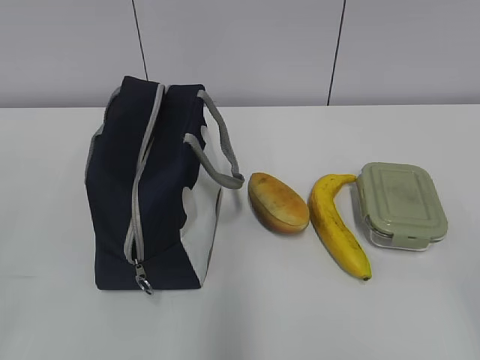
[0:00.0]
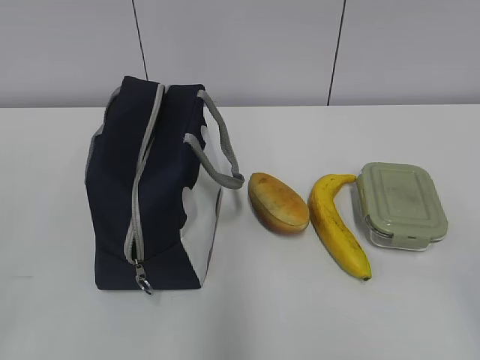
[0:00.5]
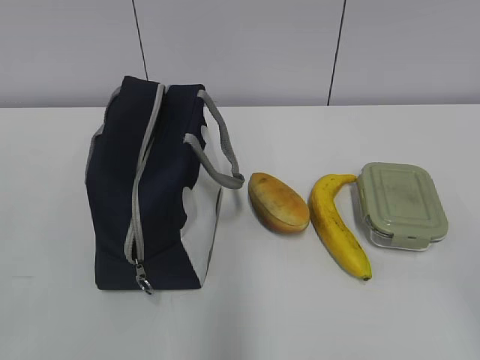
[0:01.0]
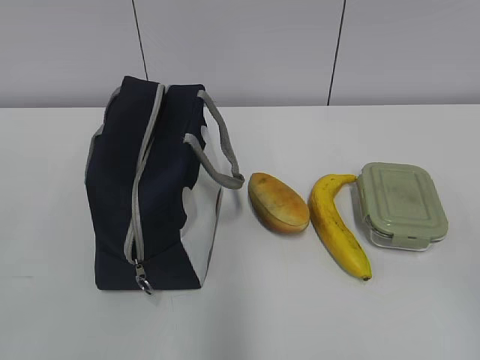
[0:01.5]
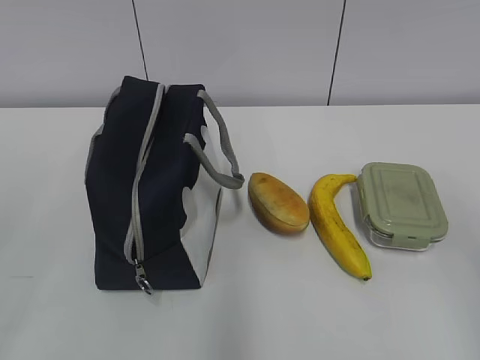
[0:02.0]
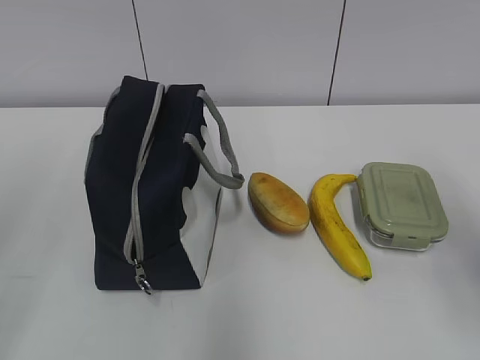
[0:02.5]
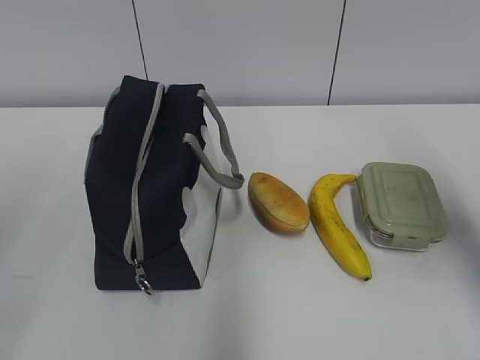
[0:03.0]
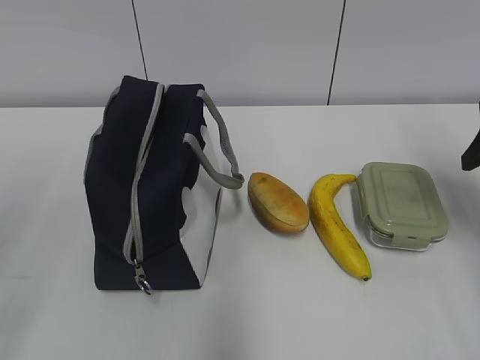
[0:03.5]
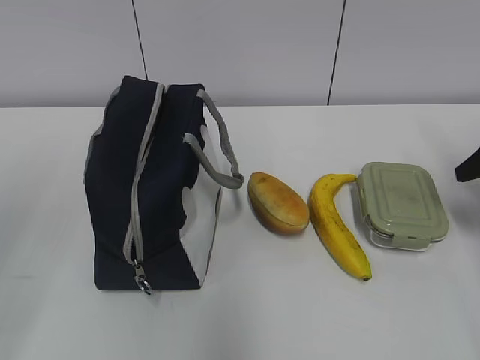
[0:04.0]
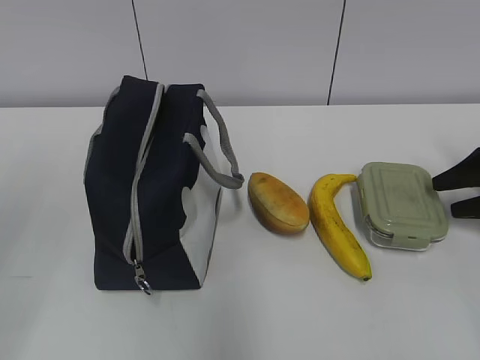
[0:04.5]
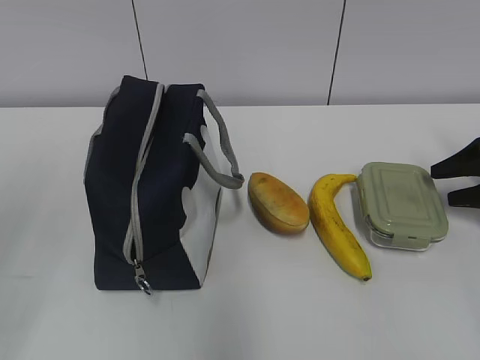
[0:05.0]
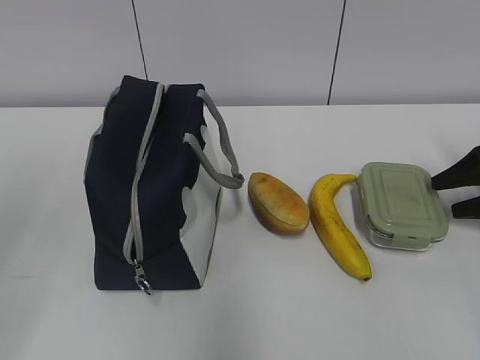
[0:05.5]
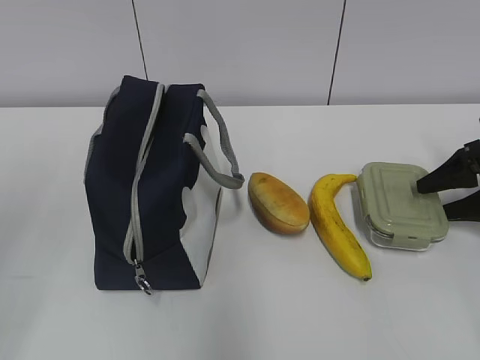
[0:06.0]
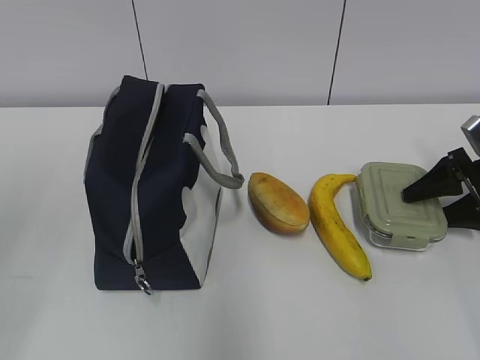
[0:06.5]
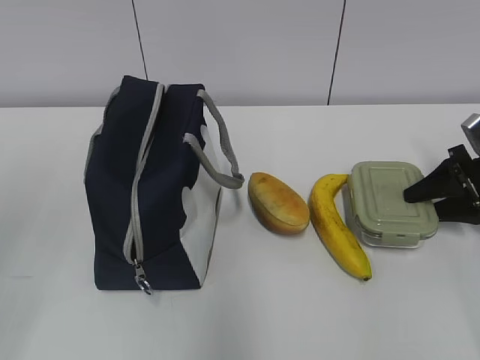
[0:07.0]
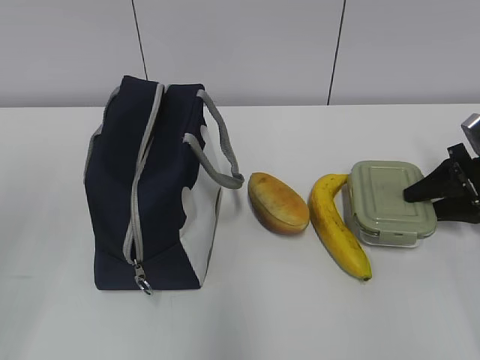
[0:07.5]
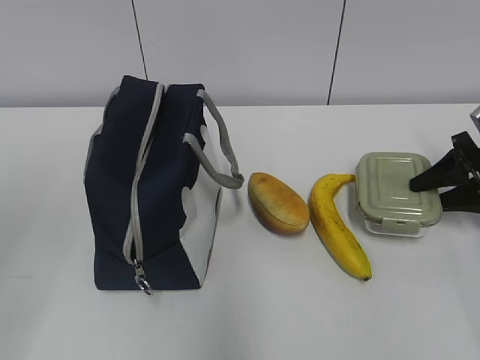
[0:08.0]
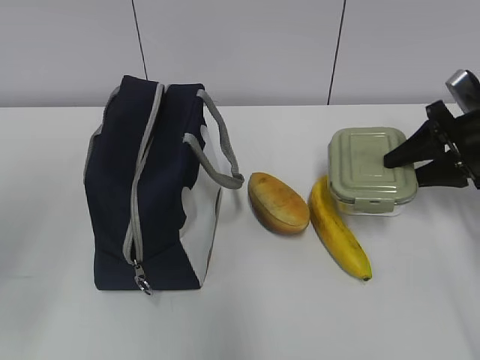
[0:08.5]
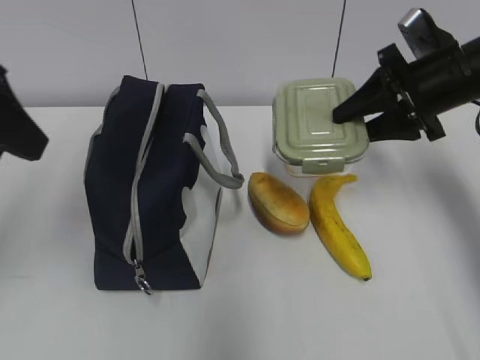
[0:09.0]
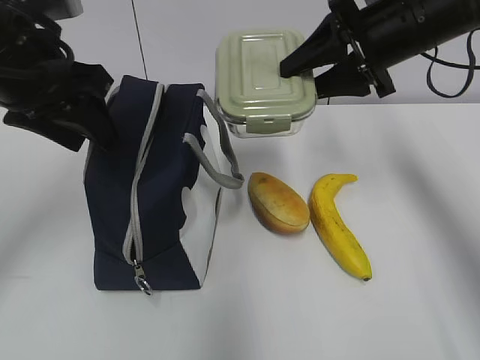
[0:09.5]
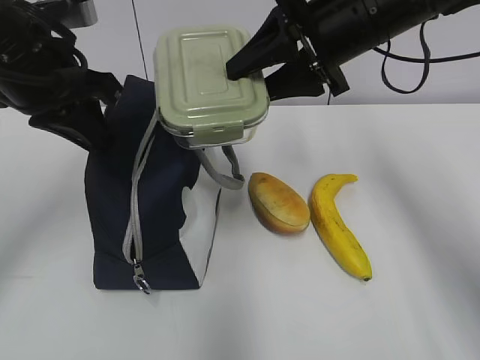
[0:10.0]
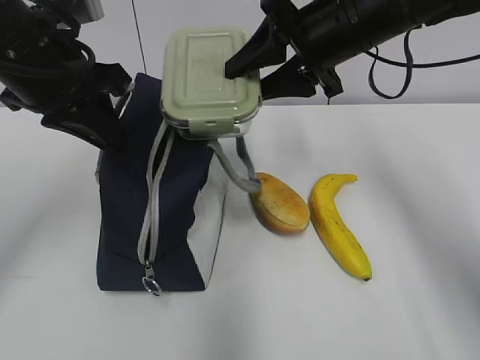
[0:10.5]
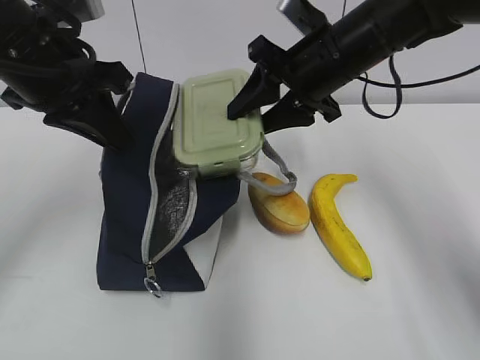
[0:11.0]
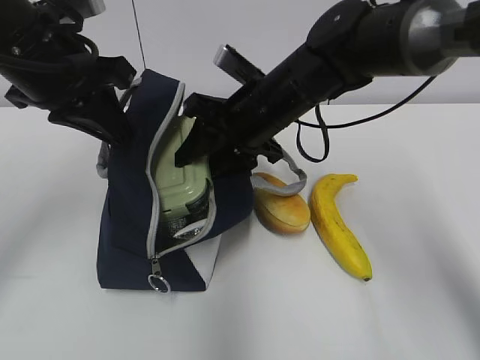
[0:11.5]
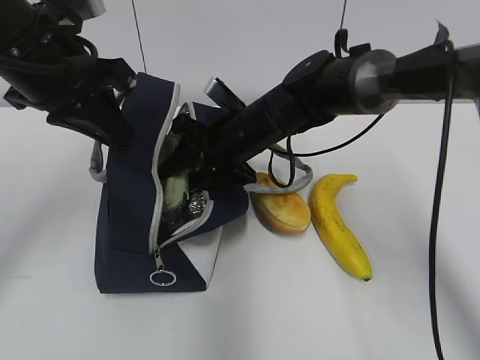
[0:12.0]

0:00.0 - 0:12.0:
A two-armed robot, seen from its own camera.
0:02.0 - 0:04.0: The right gripper is displaced forward by approximately 25 cm.
0:04.0 - 0:06.0: The right gripper heads downward, covering some 10 cm.
0:06.0 - 0:08.0: The right gripper closes up.
0:08.0 - 0:10.0: The left gripper travels forward and to the right by about 25 cm, and closes its fingers; the right gripper moves to the left and upward, some 30 cm.
0:10.0 - 0:12.0: The right gripper heads downward and to the left, covering some 20 cm.

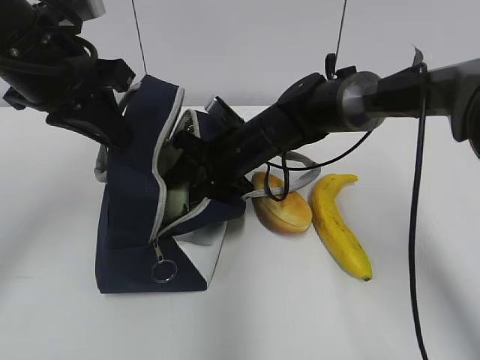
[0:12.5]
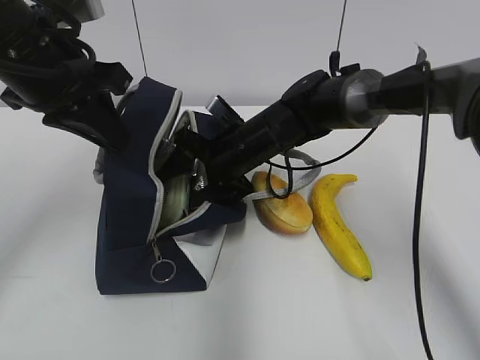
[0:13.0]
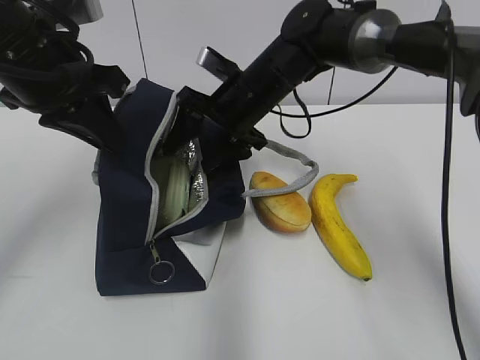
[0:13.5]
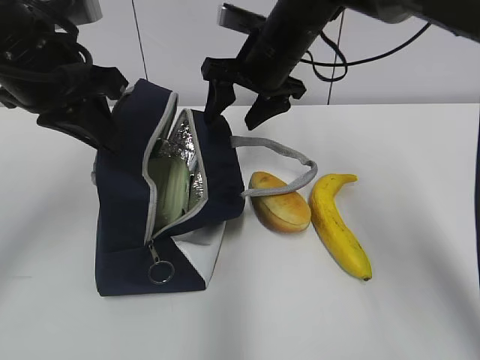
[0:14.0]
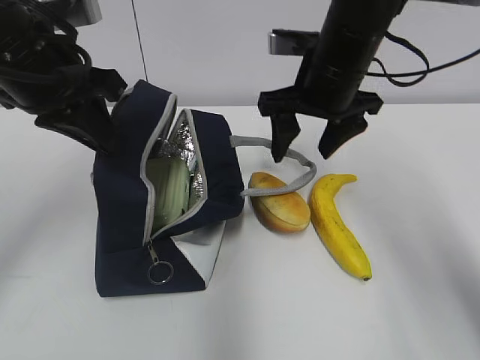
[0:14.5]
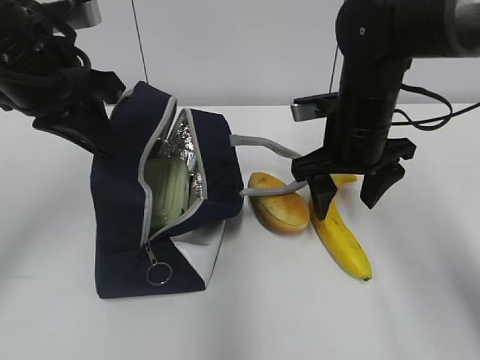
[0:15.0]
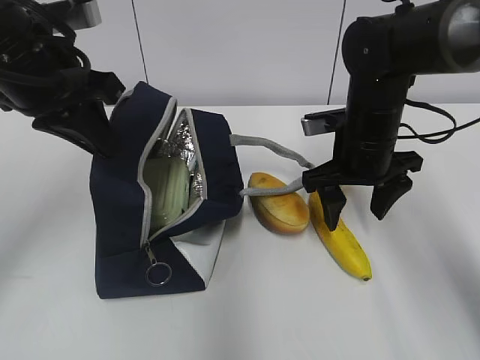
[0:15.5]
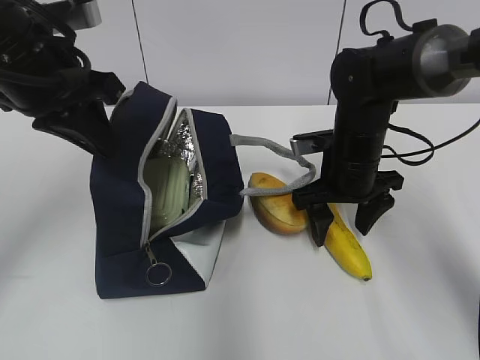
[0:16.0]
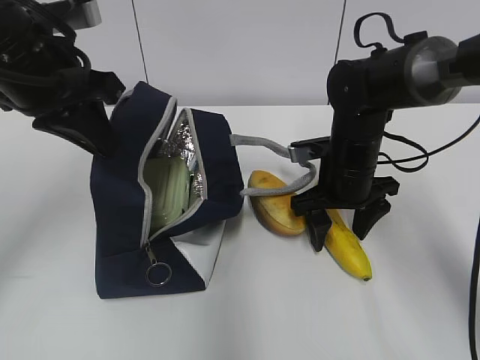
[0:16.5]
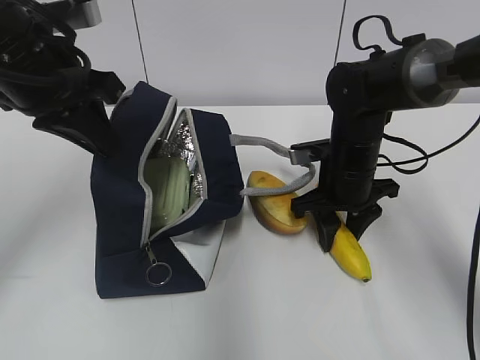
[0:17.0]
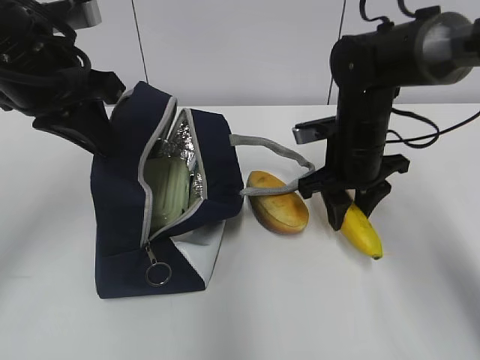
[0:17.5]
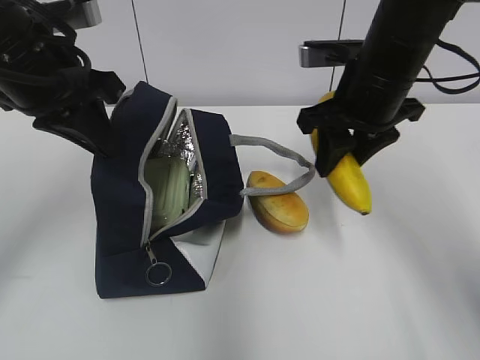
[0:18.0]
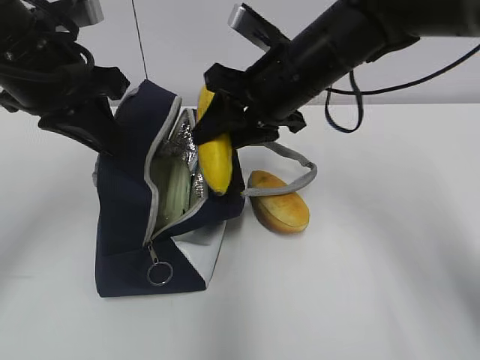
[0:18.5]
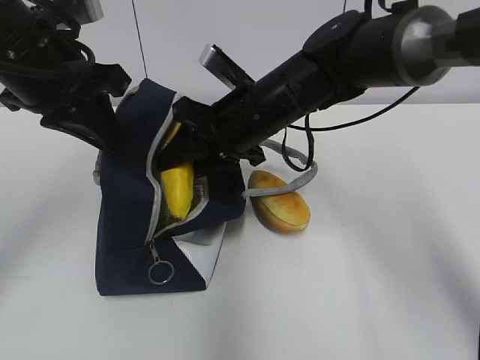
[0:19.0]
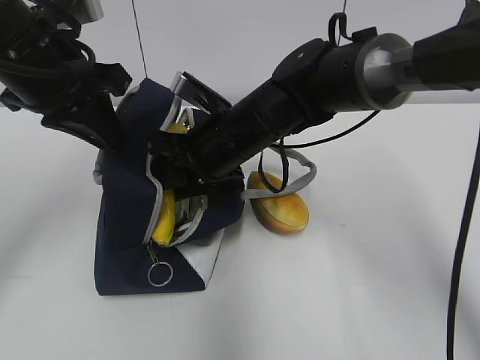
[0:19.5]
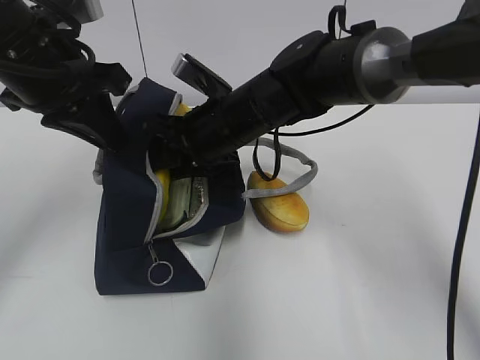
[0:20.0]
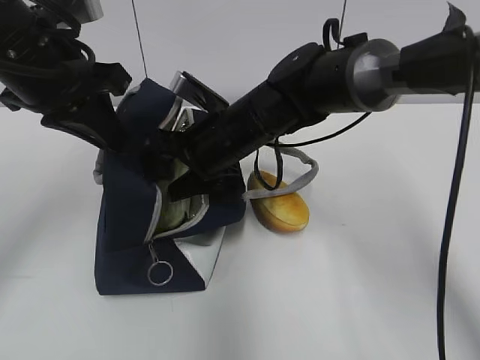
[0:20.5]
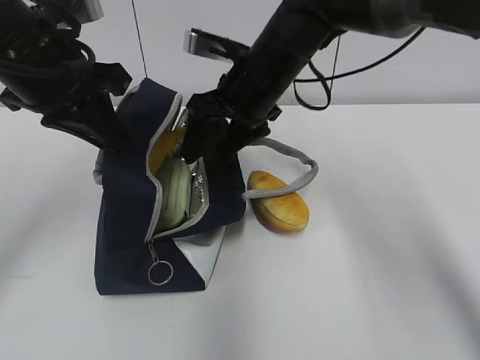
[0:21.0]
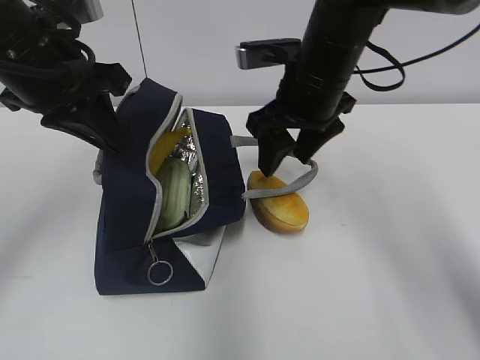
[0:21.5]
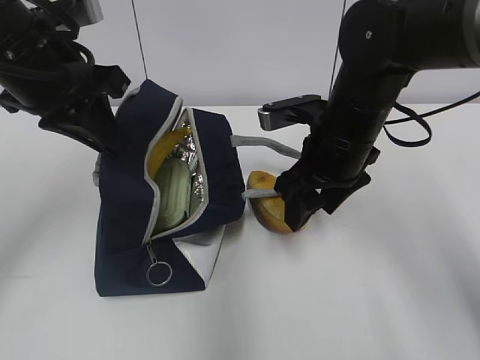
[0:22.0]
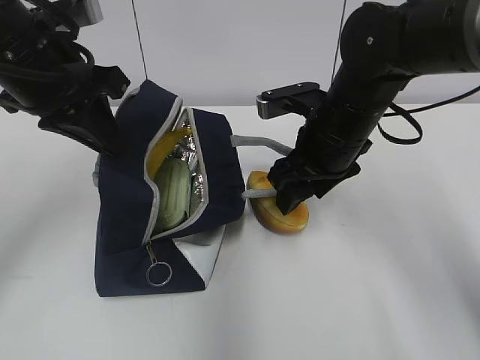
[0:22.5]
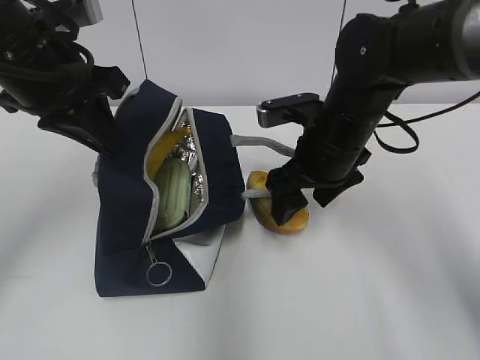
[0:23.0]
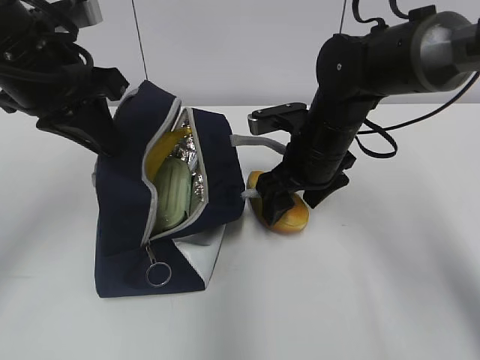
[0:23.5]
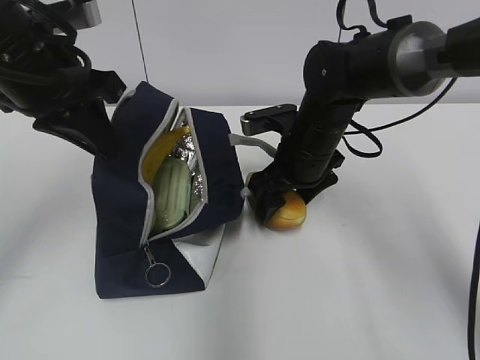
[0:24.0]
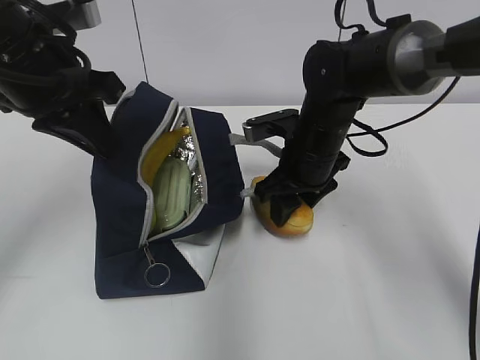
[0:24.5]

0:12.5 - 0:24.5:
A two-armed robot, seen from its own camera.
0:12.5 - 0:14.5: The right gripper heads upward and to the right, covering approximately 15 cm.
0:14.5 - 0:16.5: The right gripper moves downward, about 15 cm.
0:16.5 - 0:18.5: The right gripper moves upward and to the left, about 15 cm, and closes its fingers.
0:18.5 - 0:20.5: The right gripper travels downward and to the left by approximately 10 cm, and opens up.
0:20.5 - 0:22.5: The right gripper is displaced to the right by some 10 cm.
0:22.5 - 0:24.5: The right gripper moves about 5 cm.

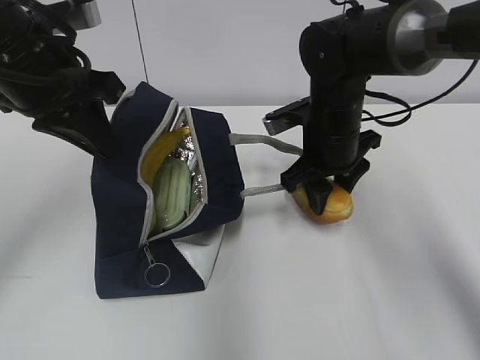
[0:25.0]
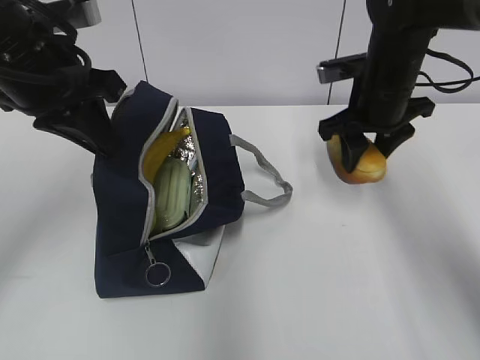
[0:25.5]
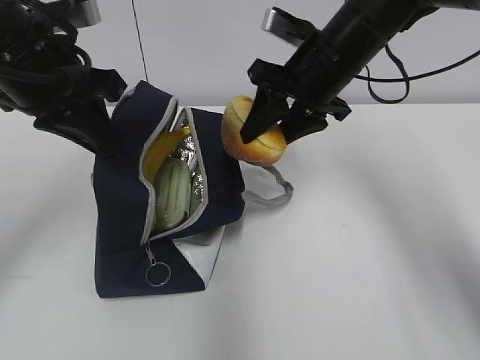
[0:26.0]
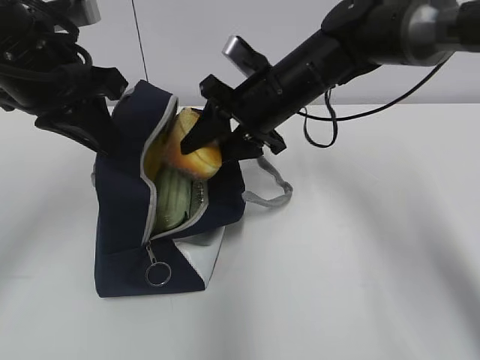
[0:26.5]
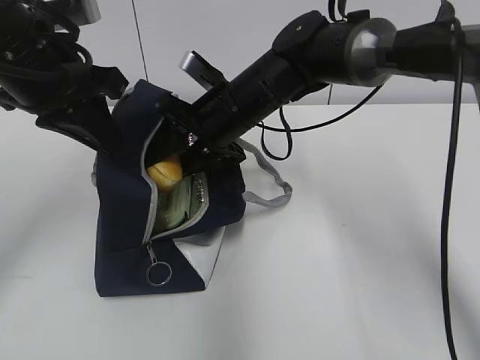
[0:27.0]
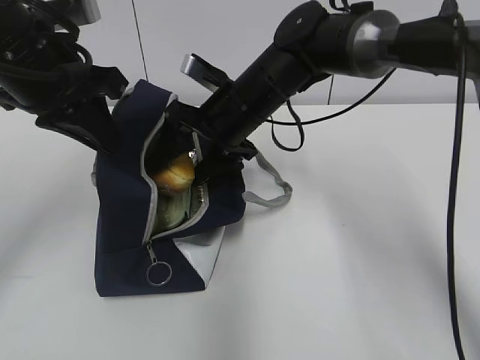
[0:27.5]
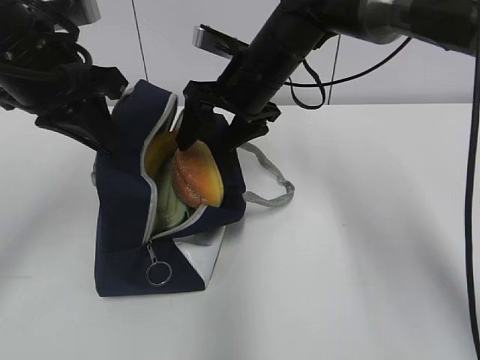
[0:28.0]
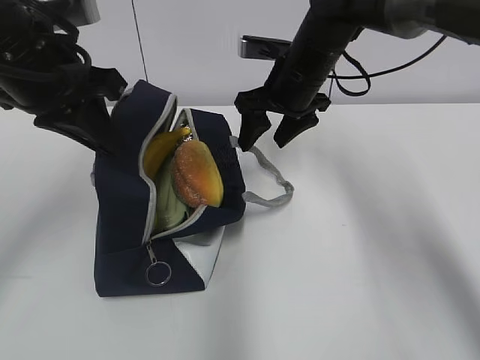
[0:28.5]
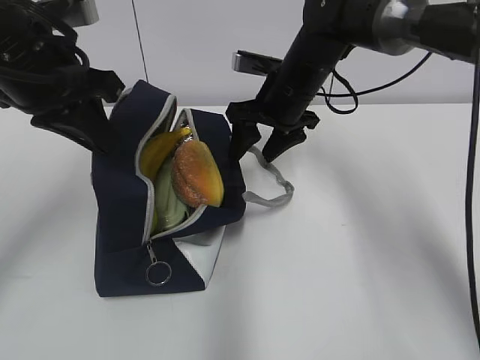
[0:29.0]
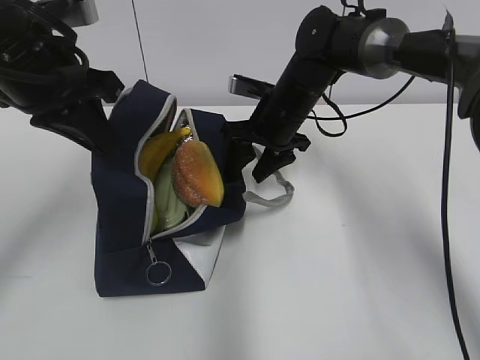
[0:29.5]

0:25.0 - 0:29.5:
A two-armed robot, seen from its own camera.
0:25.0 - 0:27.0: The right gripper shifts about 10 cm to the left.
0:27.0 - 0:29.5: The right gripper is displaced to the right by about 5 cm.
